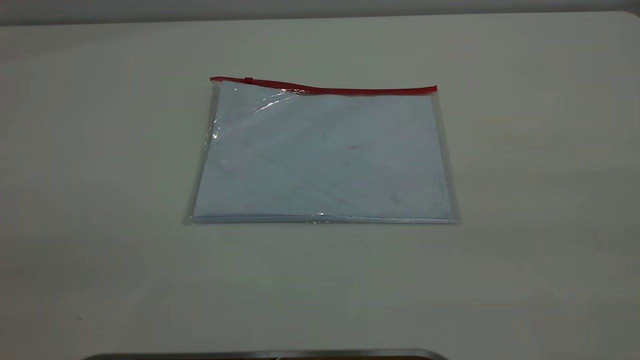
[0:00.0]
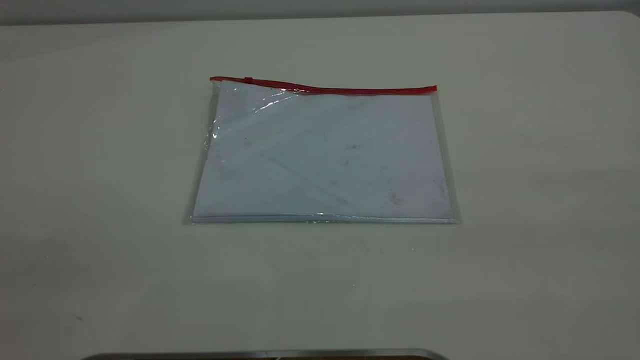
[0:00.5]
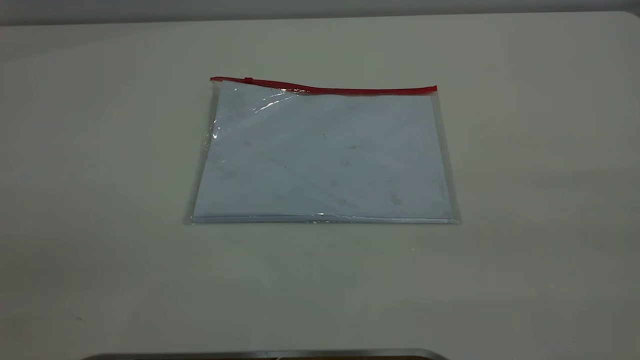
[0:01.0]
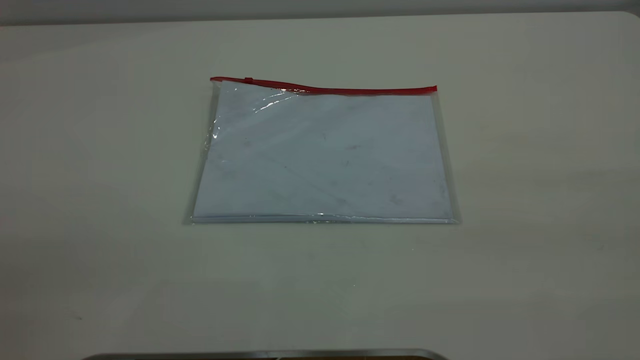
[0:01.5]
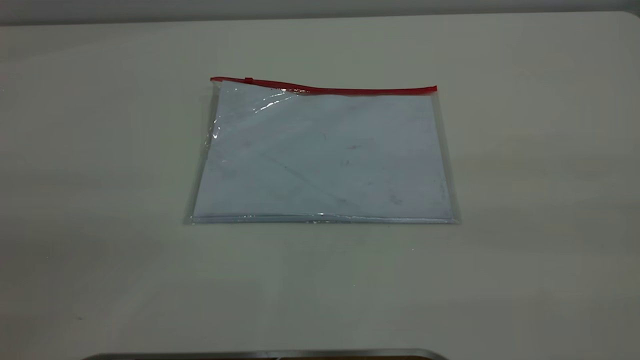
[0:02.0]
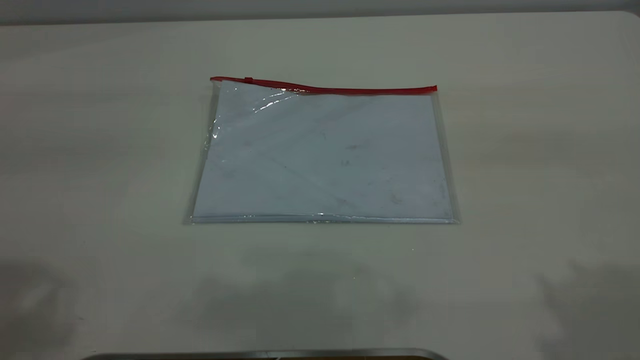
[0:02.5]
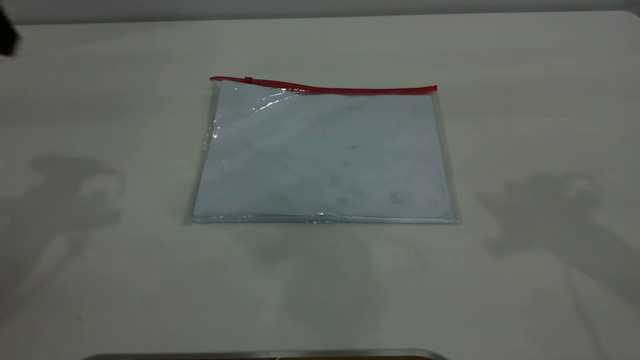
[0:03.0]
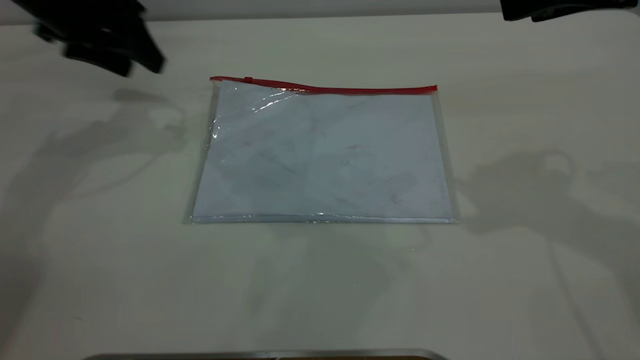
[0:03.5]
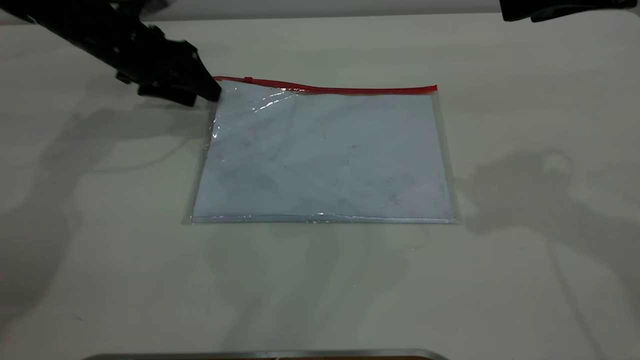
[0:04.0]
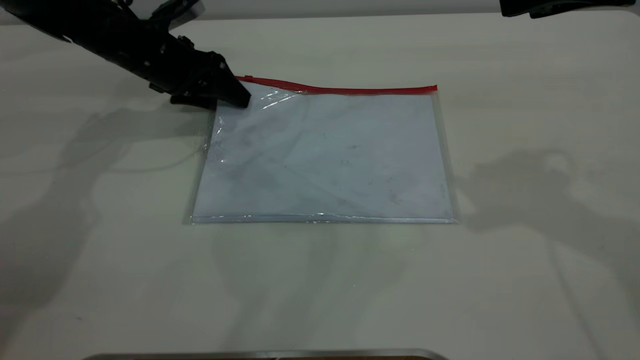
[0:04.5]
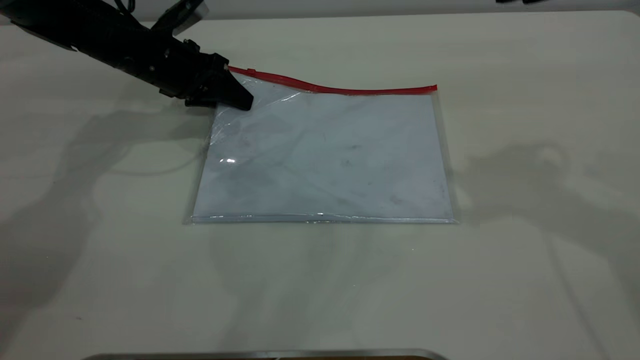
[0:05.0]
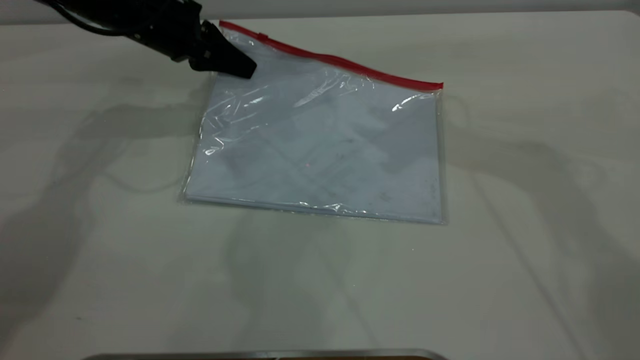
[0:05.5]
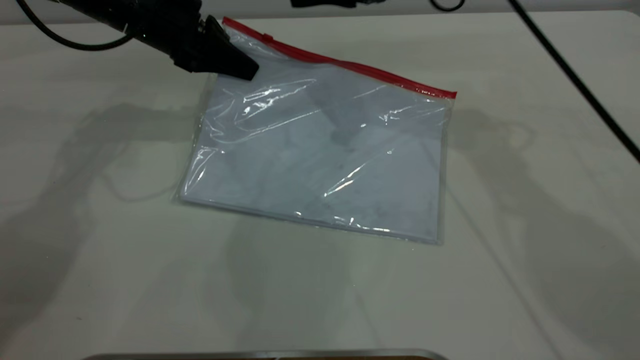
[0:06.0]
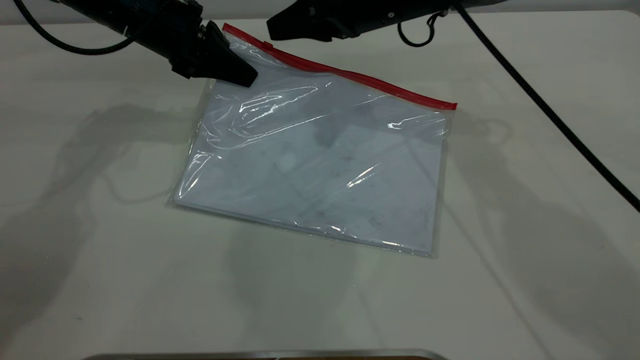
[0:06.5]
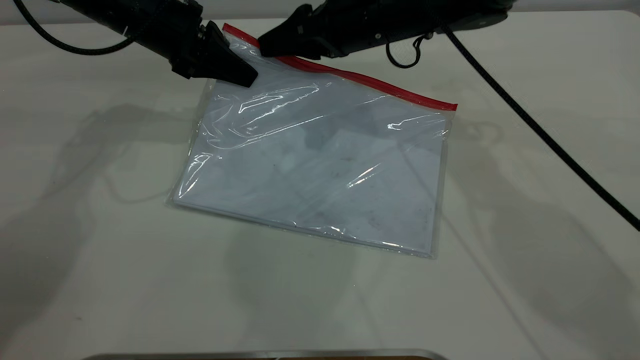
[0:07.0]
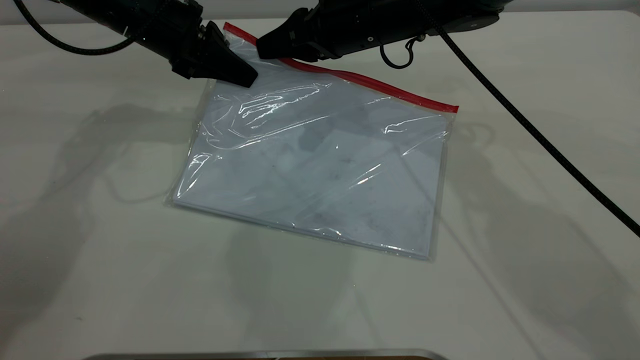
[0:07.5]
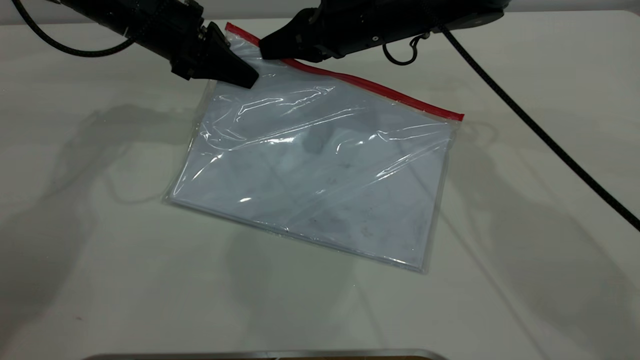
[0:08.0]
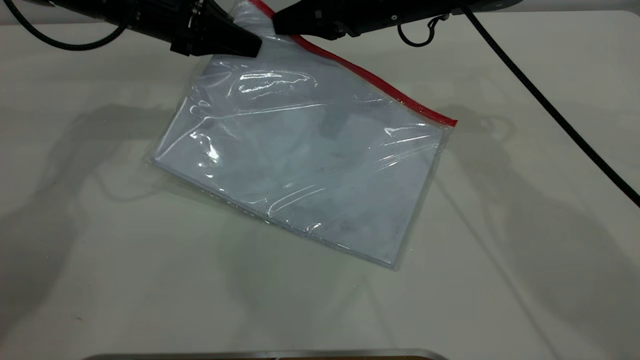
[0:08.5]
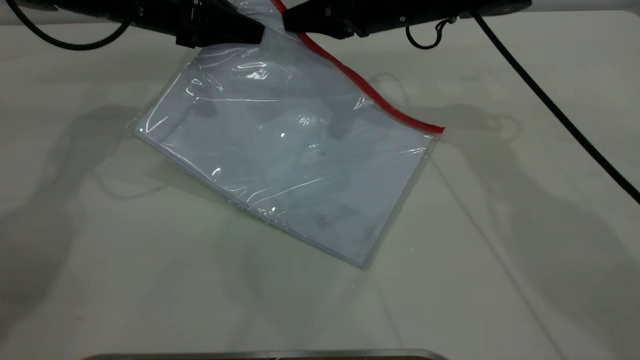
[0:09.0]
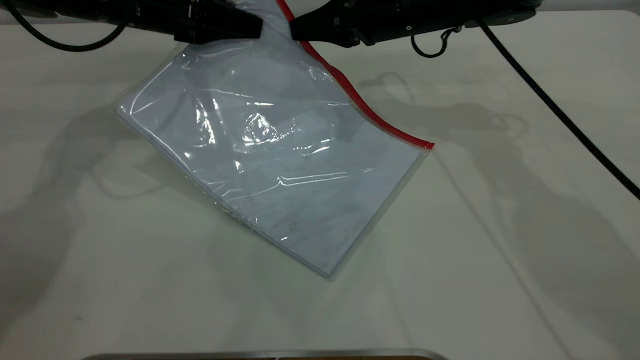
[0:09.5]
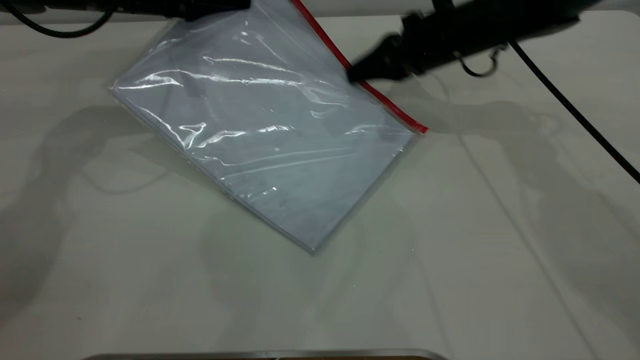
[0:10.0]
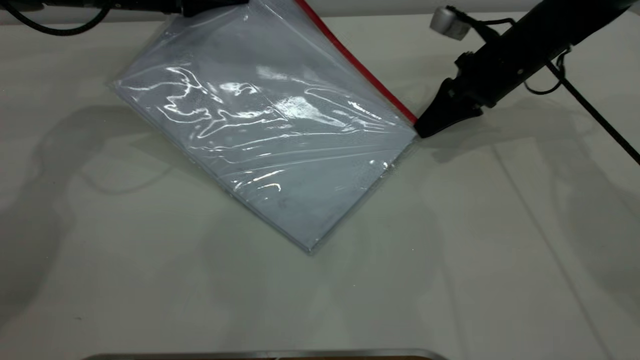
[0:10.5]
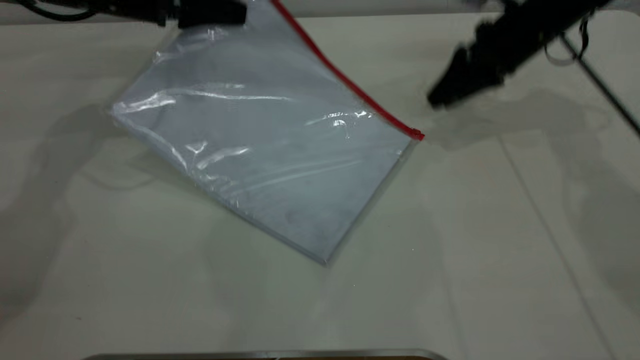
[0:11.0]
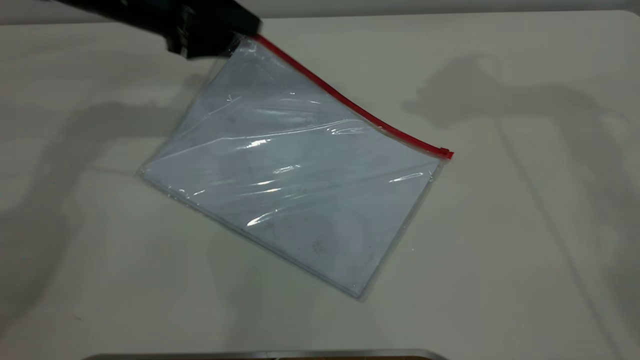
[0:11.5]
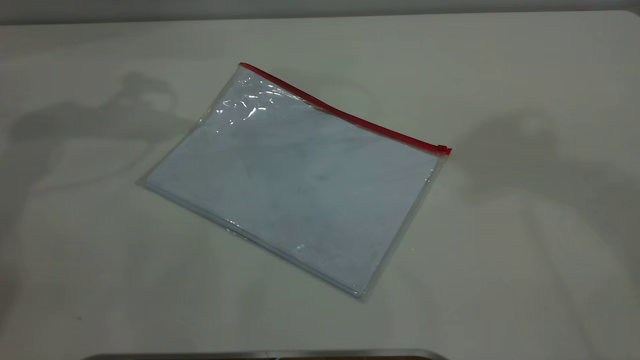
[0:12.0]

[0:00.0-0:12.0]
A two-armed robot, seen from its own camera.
Step, 0:00.0 to 0:05.0: Pick up the transparent plastic bag with the left gripper.
Step, 0:05.5 to 0:10.5: Pulling up the zipper on the transparent plastic bag with the right gripper to close it.
Step, 0:11.0 to 0:11.5: Place the transparent plastic bag.
0:02.0 to 0:04.0: The right gripper is displaced forward by approximately 25 cm. The left gripper goes roughly 50 cm forward and downward.
0:04.0 to 0:06.0: The right gripper is displaced forward, to the left and downward by some 25 cm; the left gripper ends up approximately 5 cm from where it was, and closes up.
0:06.0 to 0:08.0: The right gripper heads downward, covering roughly 5 cm, and closes its fingers.
0:08.0 to 0:10.0: The right gripper heads to the right, covering some 10 cm.
0:10.0 to 0:12.0: The right gripper goes approximately 40 cm upward, and opens up. The left gripper moves upward, about 15 cm, and opens.

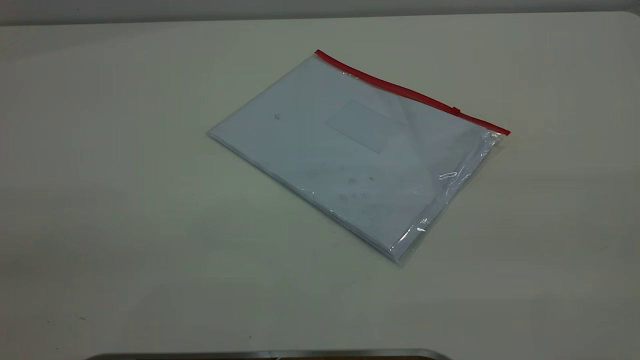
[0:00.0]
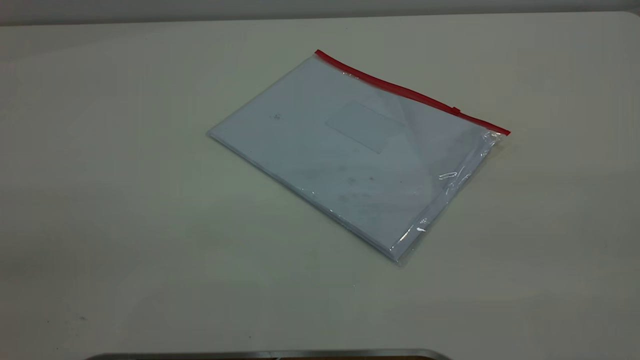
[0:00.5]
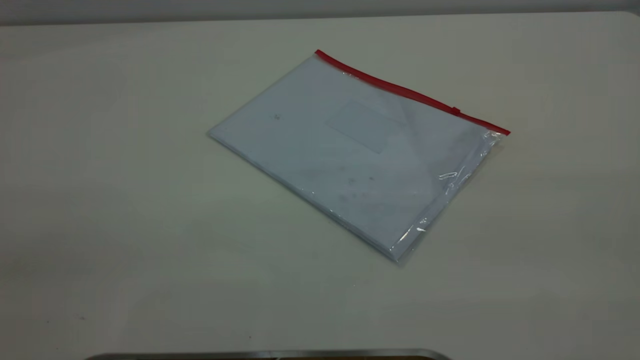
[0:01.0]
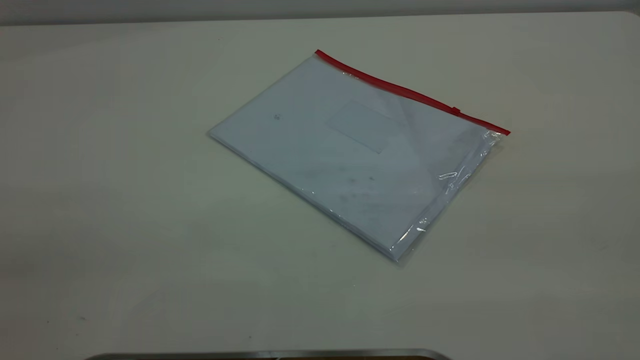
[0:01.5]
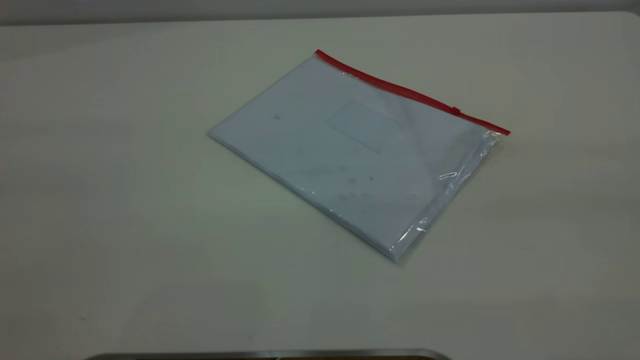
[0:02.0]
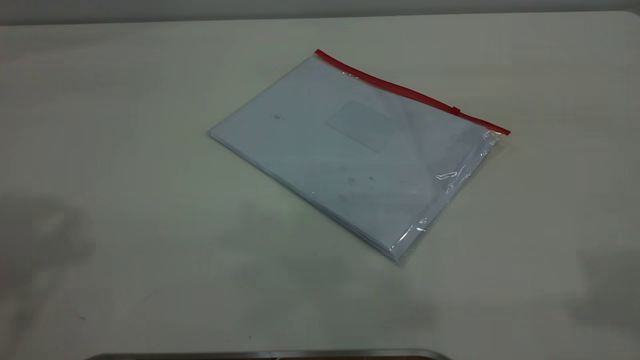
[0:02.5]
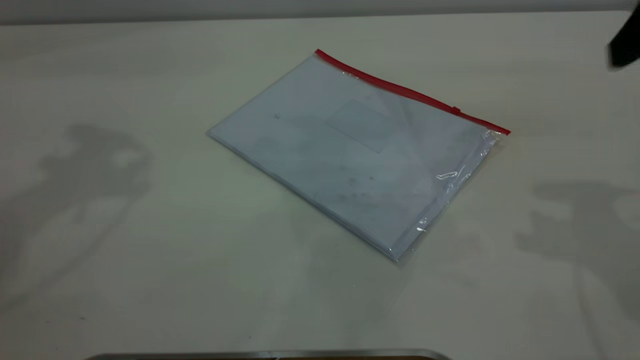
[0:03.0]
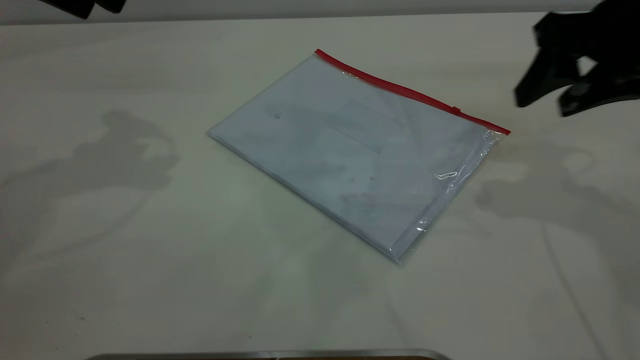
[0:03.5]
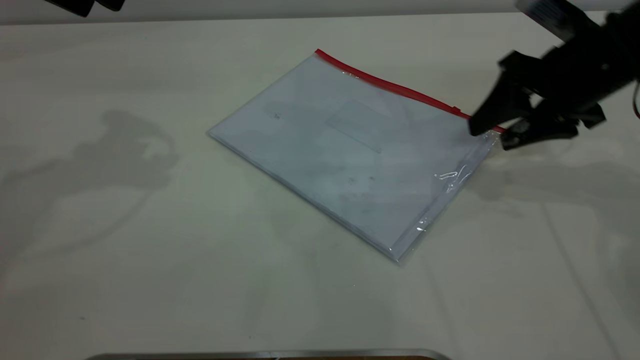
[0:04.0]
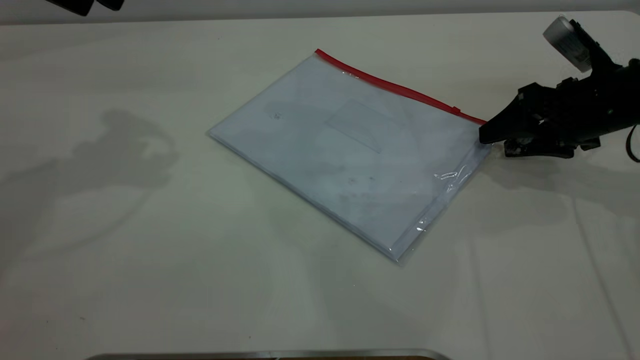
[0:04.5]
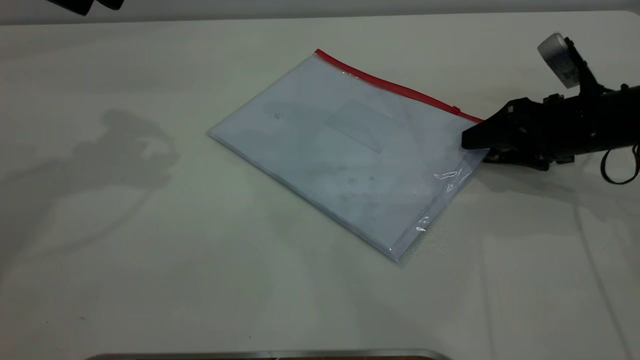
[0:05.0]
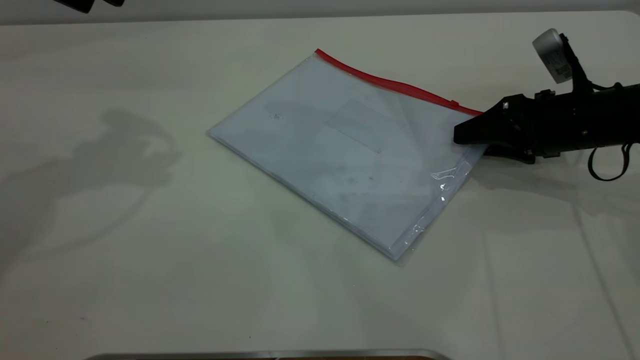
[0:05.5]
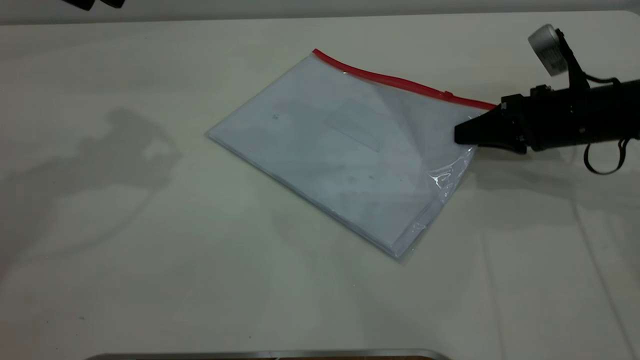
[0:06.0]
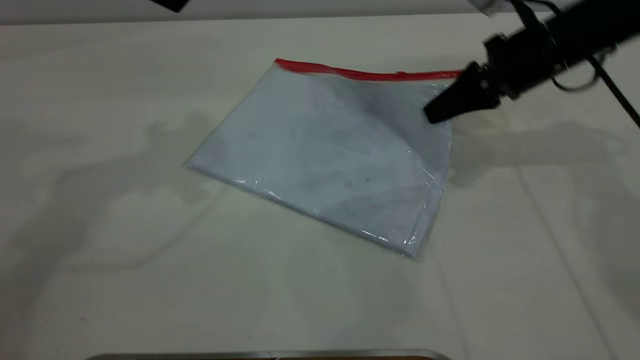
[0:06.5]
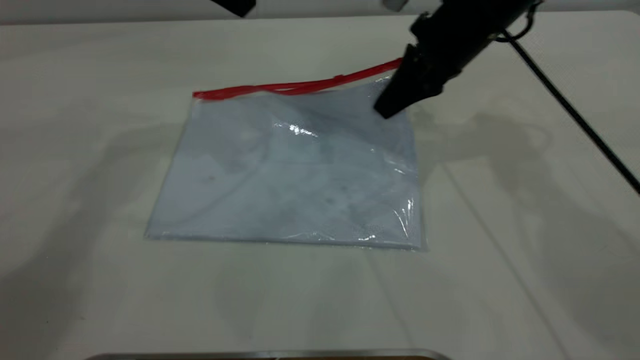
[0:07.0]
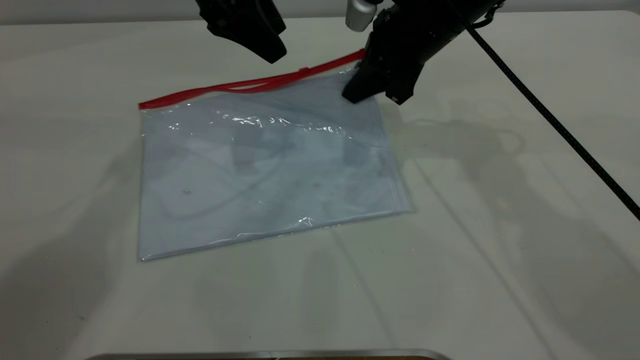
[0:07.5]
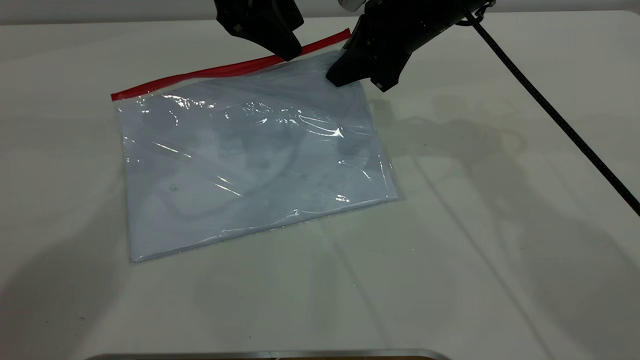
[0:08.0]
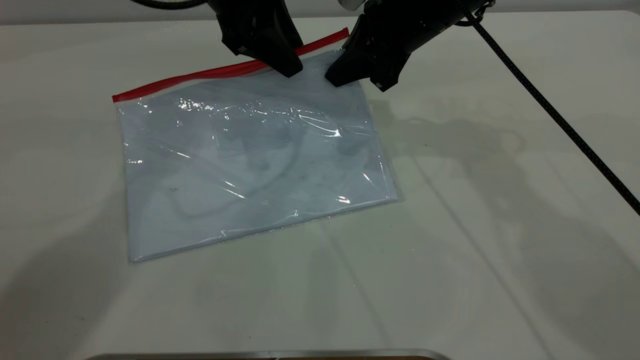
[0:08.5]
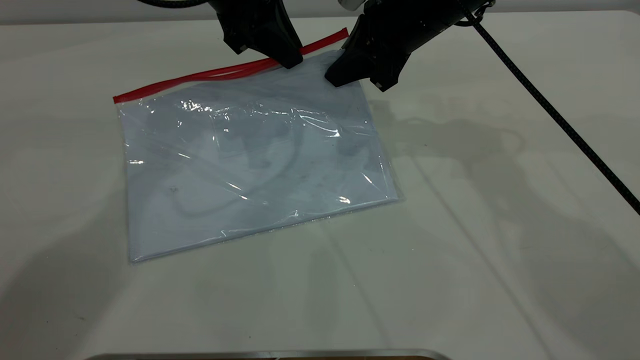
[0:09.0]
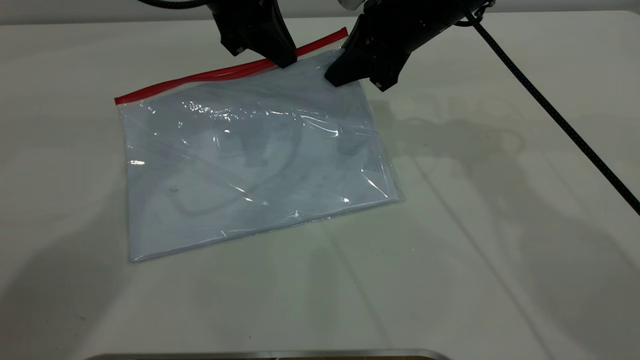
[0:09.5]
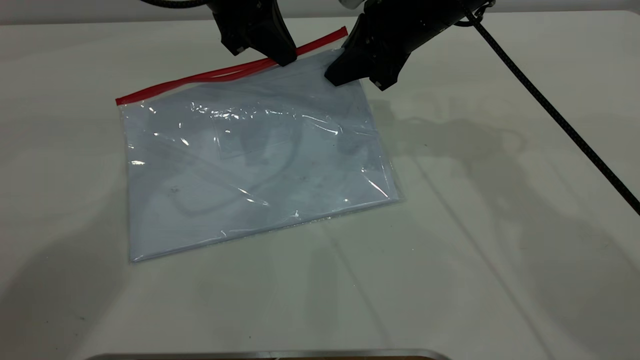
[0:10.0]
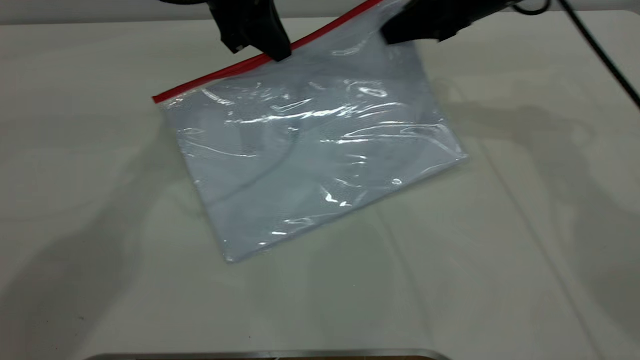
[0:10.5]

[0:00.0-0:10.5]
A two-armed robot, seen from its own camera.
Step, 0:00.0 to 0:06.5: Pick up the transparent plastic bag with the right gripper.
0:02.0 to 0:04.0: The right gripper heads forward and downward, covering about 40 cm.
0:04.0 to 0:06.5: The left gripper shifts approximately 5 cm to the right; the right gripper is displaced forward by some 5 cm, goes downward and returns, approximately 10 cm each way, and closes up.
0:06.5 to 0:08.5: The right gripper moves to the left, approximately 10 cm; the left gripper moves to the right, downward and forward, approximately 15 cm.
0:08.5 to 0:10.5: The right gripper shifts approximately 10 cm to the right, while the left gripper closes its fingers.
